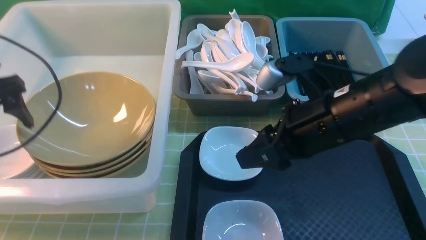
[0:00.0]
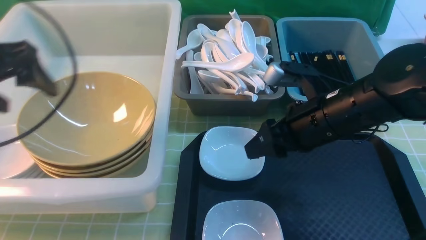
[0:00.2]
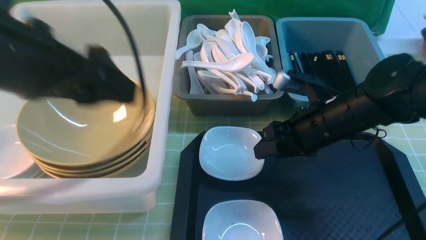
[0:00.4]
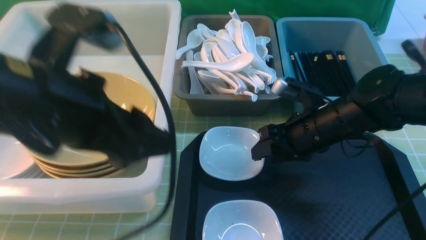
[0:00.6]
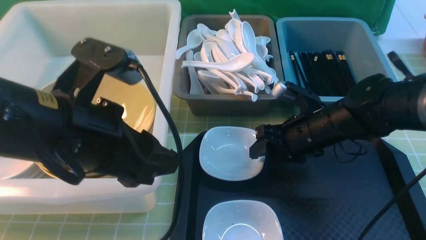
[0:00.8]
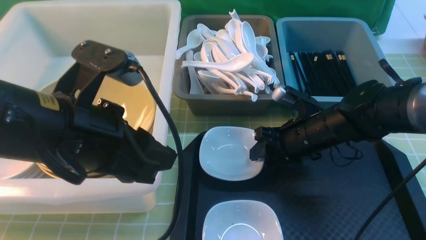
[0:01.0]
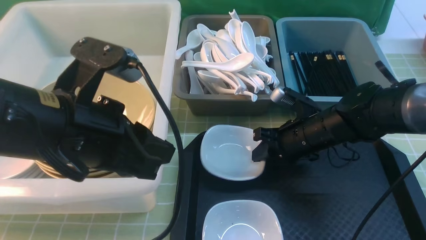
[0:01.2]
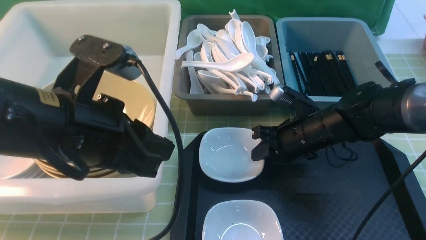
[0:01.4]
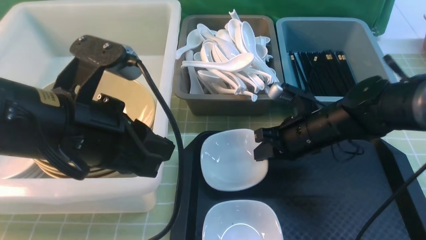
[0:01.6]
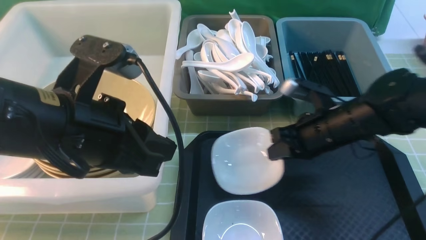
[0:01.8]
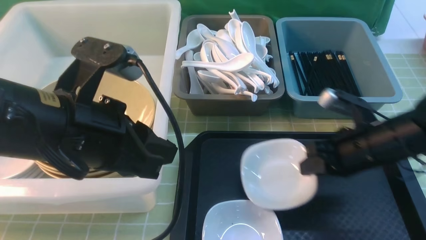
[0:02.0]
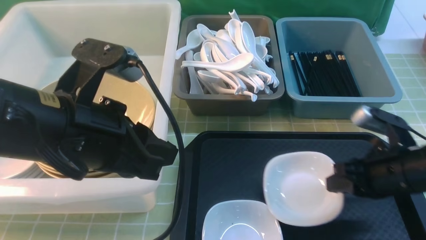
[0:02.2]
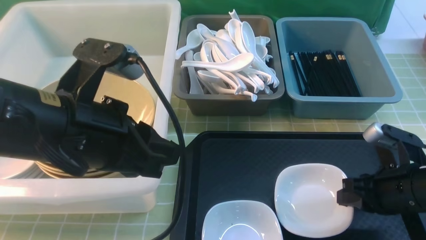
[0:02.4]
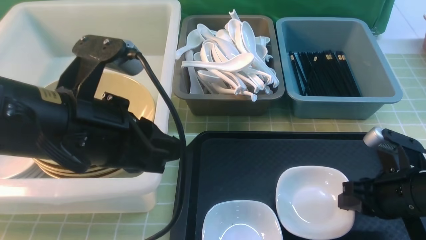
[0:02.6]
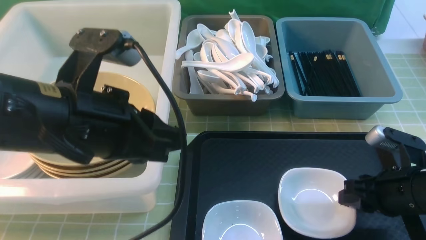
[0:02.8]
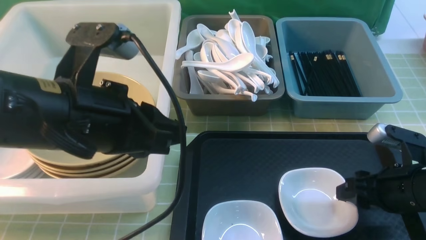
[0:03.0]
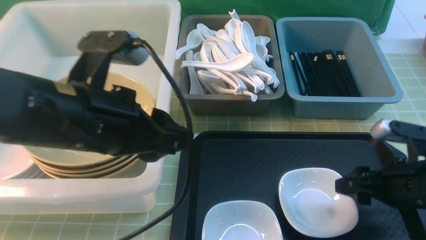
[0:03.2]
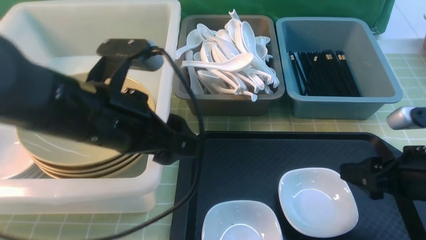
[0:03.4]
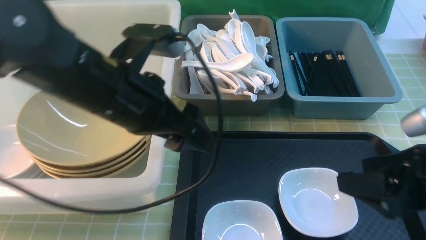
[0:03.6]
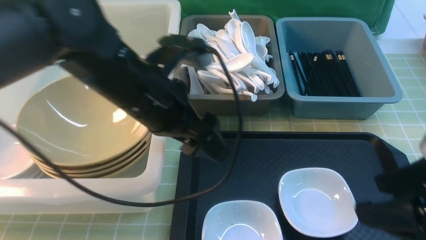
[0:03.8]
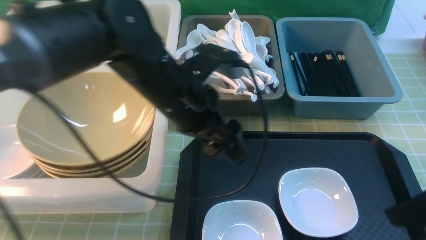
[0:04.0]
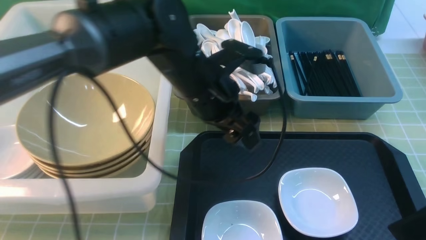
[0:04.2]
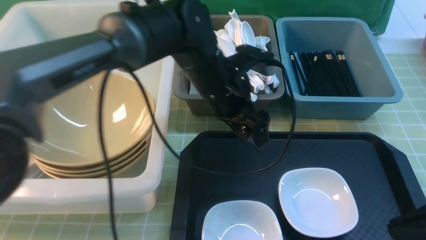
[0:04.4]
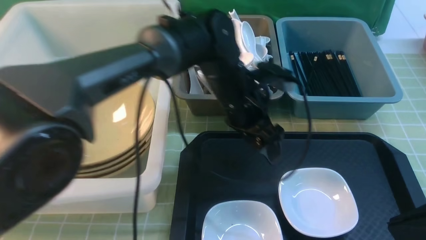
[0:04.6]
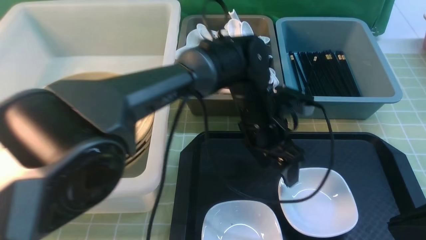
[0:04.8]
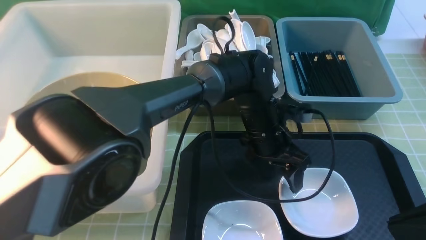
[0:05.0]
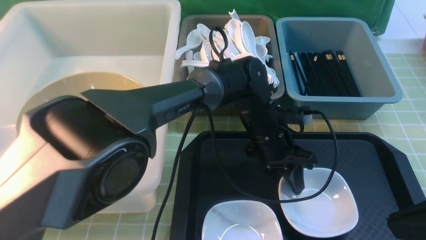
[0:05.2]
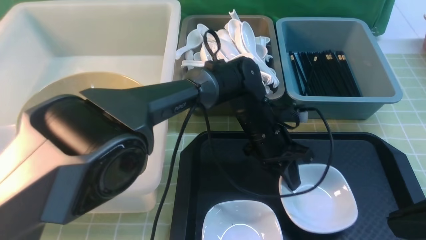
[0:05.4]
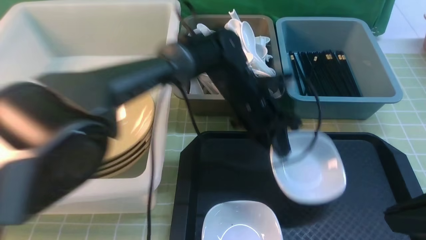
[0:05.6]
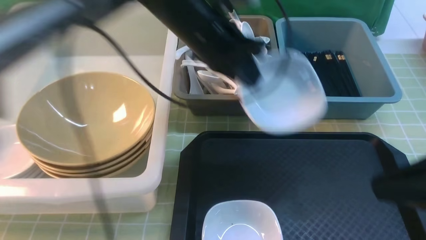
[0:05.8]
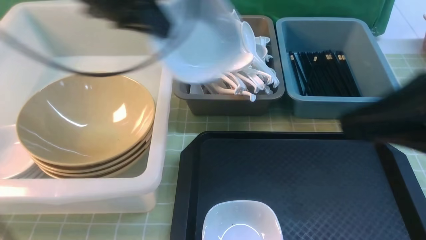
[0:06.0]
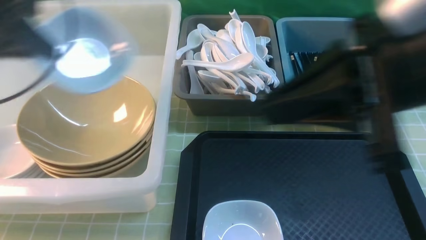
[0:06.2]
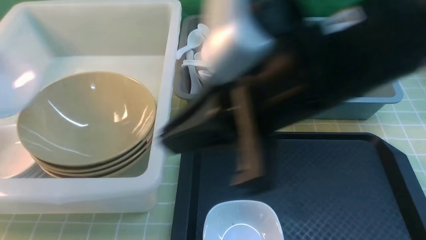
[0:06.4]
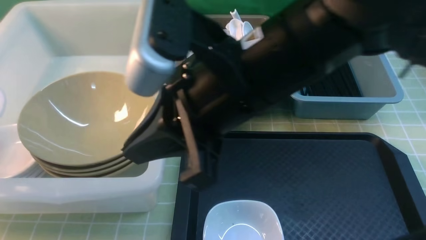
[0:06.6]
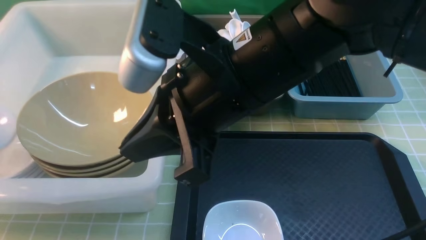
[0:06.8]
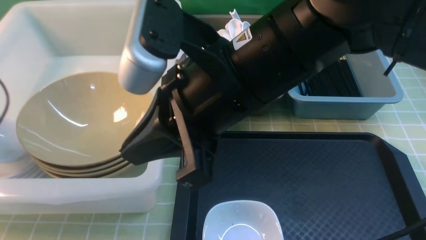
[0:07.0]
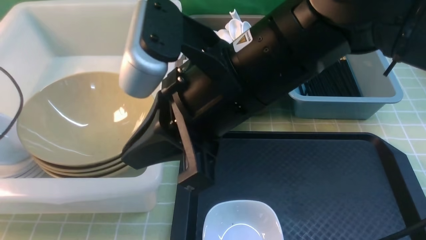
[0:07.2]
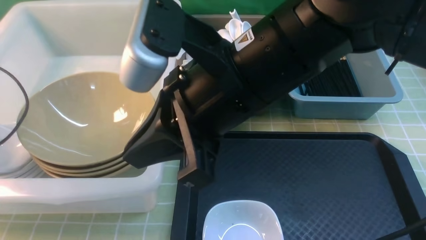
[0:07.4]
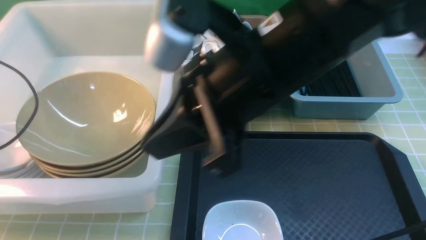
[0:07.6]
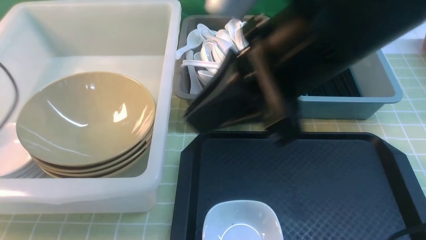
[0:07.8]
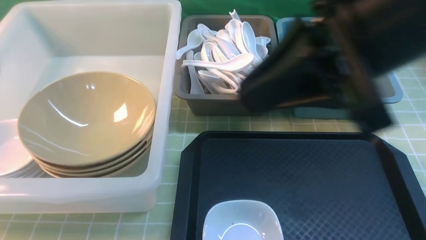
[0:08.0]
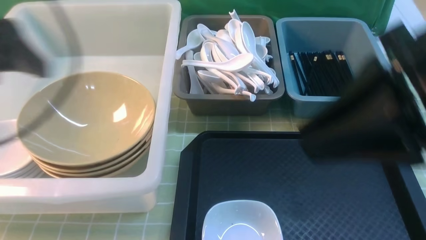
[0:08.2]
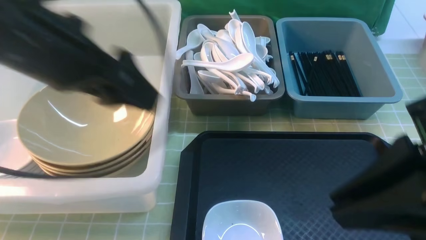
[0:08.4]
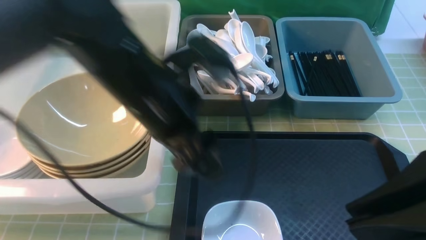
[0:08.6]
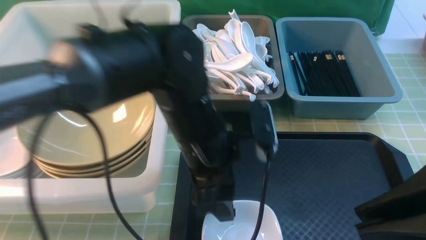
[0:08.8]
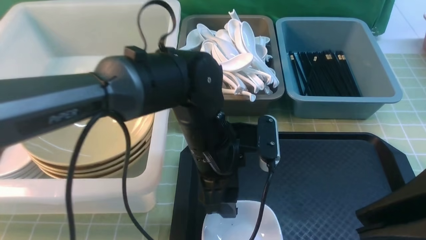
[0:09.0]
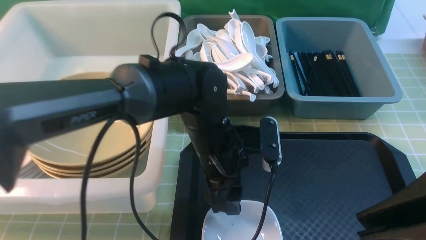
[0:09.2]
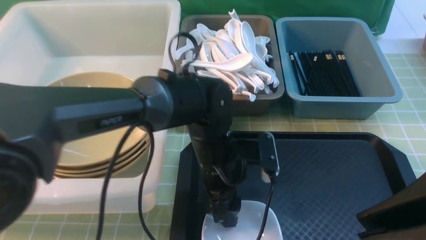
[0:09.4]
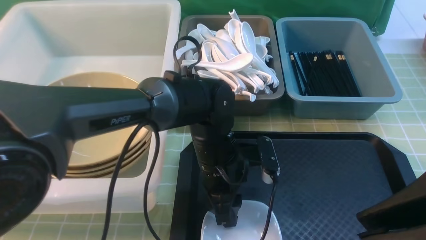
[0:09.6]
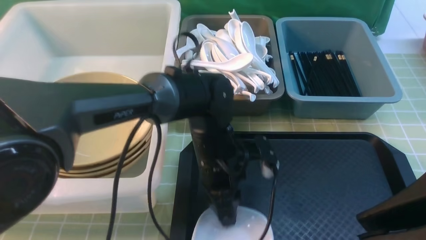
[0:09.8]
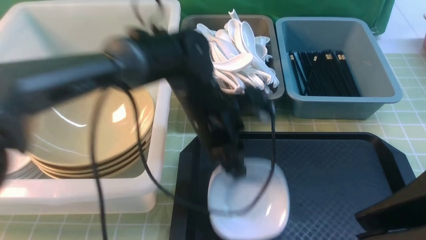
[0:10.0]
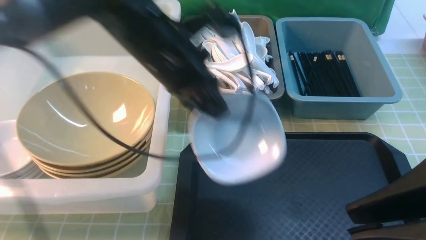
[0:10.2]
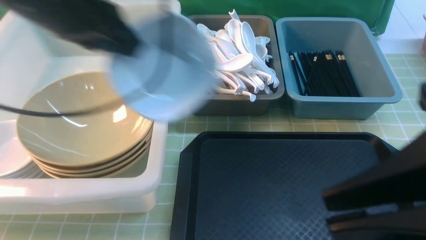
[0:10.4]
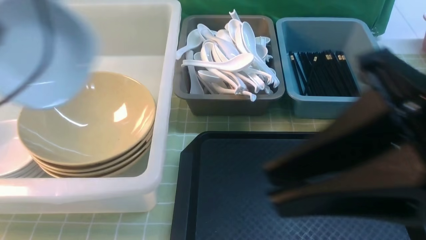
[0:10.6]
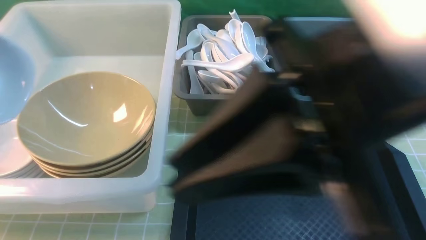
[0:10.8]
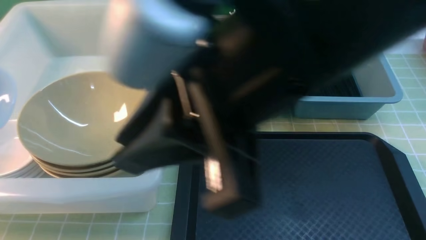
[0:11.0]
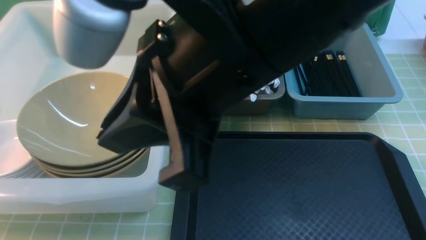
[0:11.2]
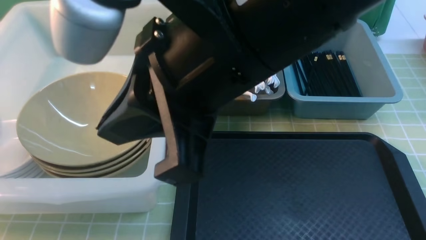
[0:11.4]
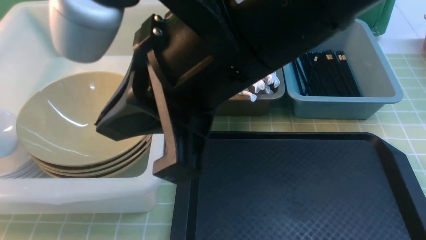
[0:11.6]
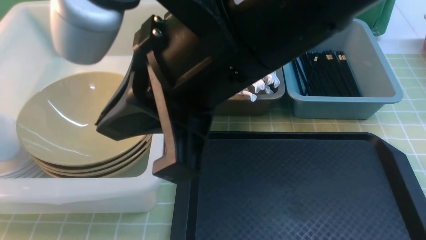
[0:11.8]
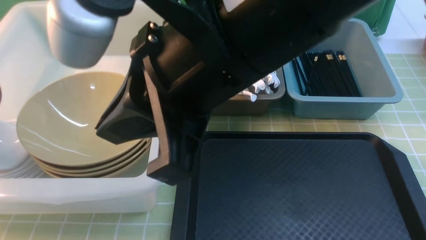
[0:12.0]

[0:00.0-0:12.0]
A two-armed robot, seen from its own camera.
Task of the whole recording: on green table put chopsticks spoon bowls plates into blue grey white boxes.
Step, 0:00.2 to 0:01.6: use the right arm to grab the plate.
Step, 0:01.8 to 0:03.2: use the right arm to put the plate on the tray.
Step, 0:03.4 to 0:05.4: use the left arm to grab the plate.
Step, 0:05.6 to 0:07.8: use the left arm to put the plate into the large storage box on the left.
Step, 0:08.0 to 0:10.0: use the left arm to grab the plate.
0:00.0 to 0:01.6: The left gripper goes some 20 cm to the right and backward, and closes. Meanwhile the right gripper heads downward and forward, covering roughly 15 cm, and closes its fingers.
0:01.6 to 0:03.0: The right gripper moves backward and to the right, some 15 cm, and opens up.
0:03.0 to 0:04.4: The left gripper travels forward, to the right and downward by some 20 cm, and opens, while the right gripper travels upward and backward by about 20 cm, and closes.
0:04.4 to 0:06.0: The left gripper heads to the left and upward, covering roughly 25 cm, and closes its fingers; the right gripper travels upward and forward by about 10 cm.
0:06.0 to 0:07.6: The right gripper heads to the left, covering some 15 cm. Meanwhile the left gripper is displaced to the left and downward by roughly 20 cm, and opens up.
0:07.6 to 0:09.0: The right gripper is displaced to the right and backward by some 20 cm. The left gripper moves to the right, about 40 cm.
0:09.0 to 0:10.4: The left gripper travels to the left and upward by approximately 25 cm, and closes up.
0:10.4 to 0:12.0: The left gripper moves to the left and downward, approximately 25 cm, and opens up. The right gripper is displaced to the left and forward by approximately 20 cm.

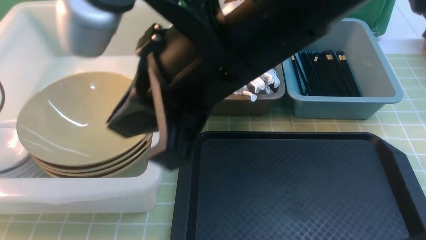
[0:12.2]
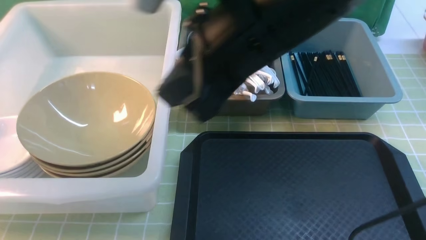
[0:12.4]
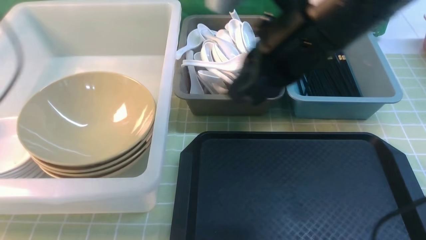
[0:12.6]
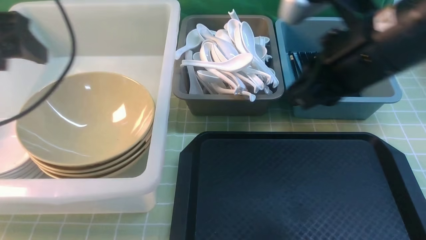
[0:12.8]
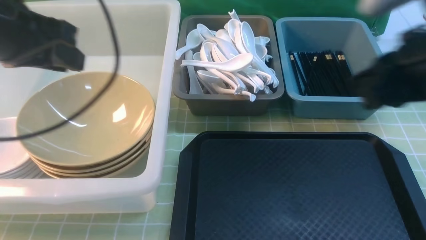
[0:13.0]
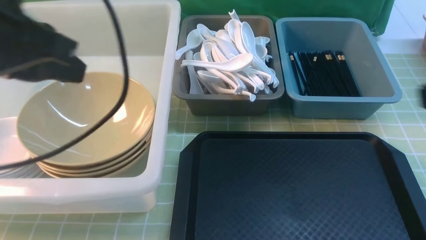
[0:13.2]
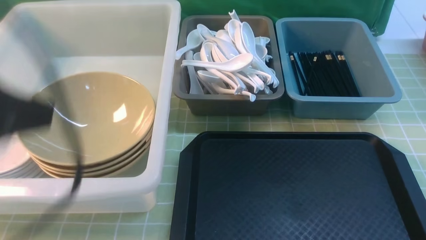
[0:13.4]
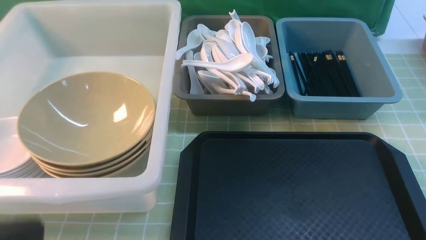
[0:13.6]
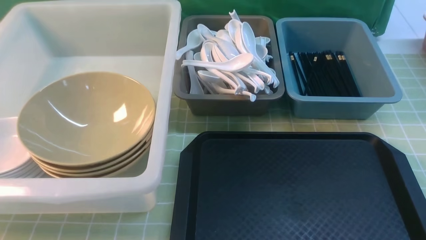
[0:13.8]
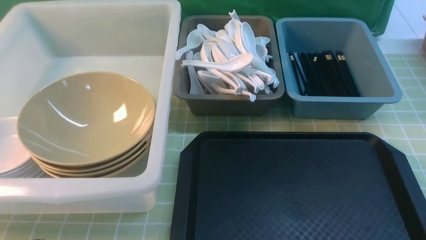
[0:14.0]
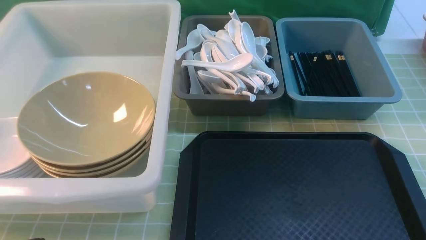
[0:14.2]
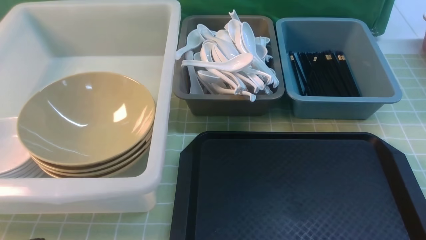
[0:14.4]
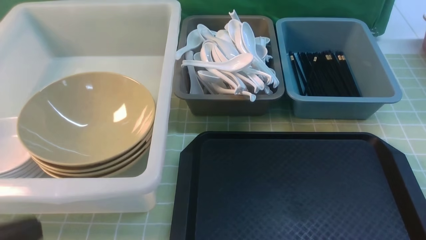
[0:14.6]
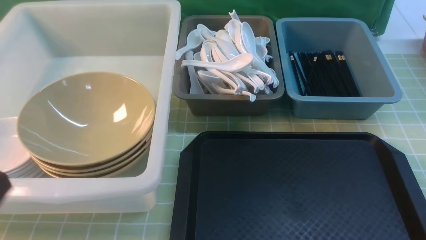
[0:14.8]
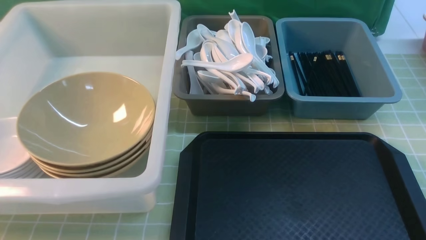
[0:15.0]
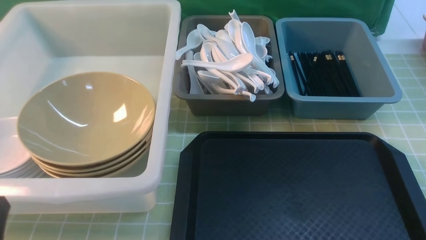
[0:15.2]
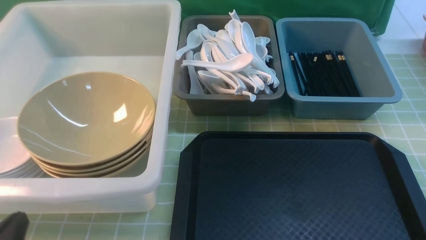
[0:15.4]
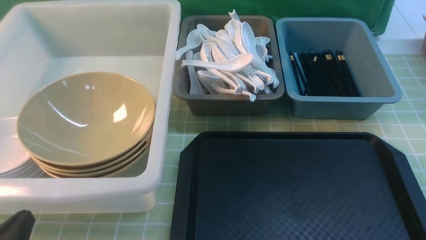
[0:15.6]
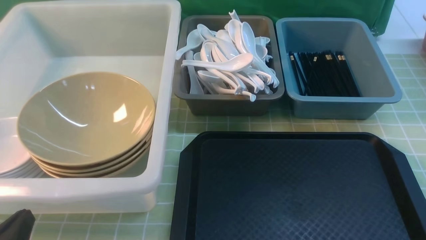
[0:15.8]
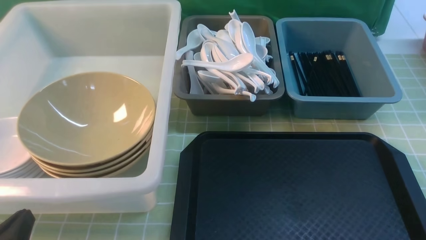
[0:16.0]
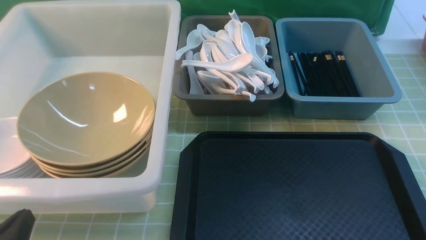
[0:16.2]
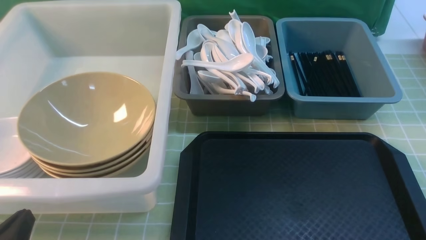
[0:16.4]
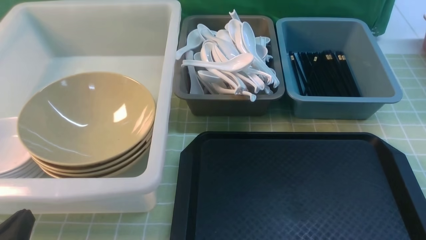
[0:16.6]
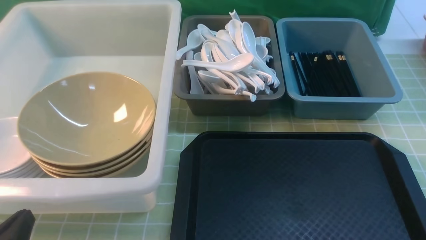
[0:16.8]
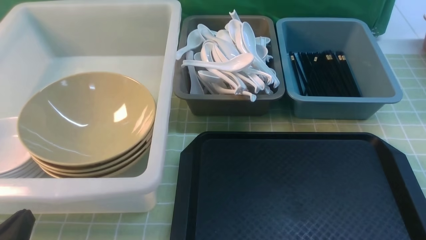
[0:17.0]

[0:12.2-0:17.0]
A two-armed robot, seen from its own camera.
Task of the whole recording: on green table put chopsticks spoon bowls plates into blue grey white boxes.
0:12.2 to 0:13.8: The right gripper goes some 40 cm to the right, backward and downward; the left gripper is displaced backward and to the right by some 35 cm, and closes up.
0:13.8 to 0:15.4: The left gripper travels downward by some 15 cm.
